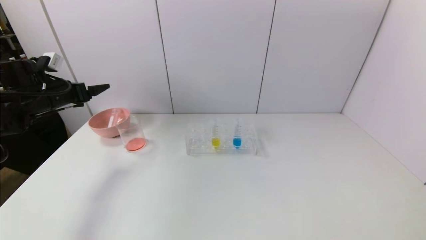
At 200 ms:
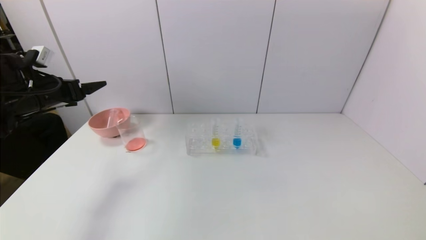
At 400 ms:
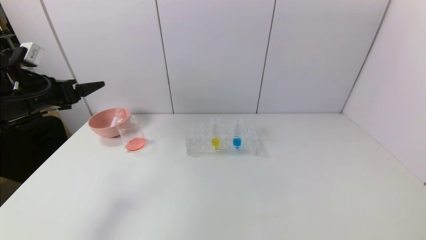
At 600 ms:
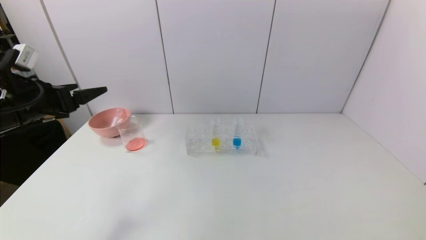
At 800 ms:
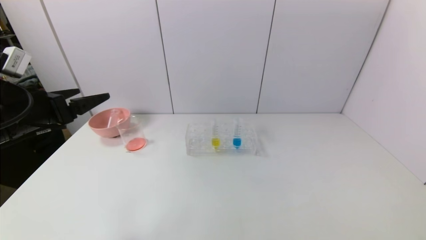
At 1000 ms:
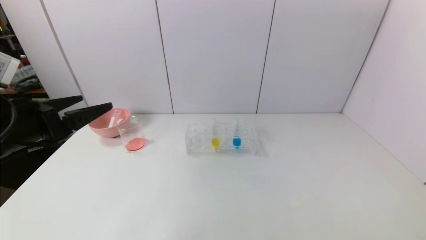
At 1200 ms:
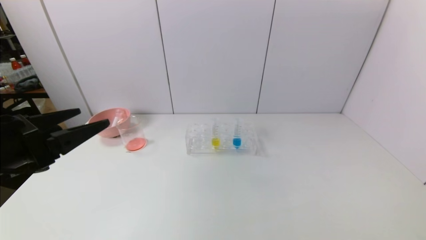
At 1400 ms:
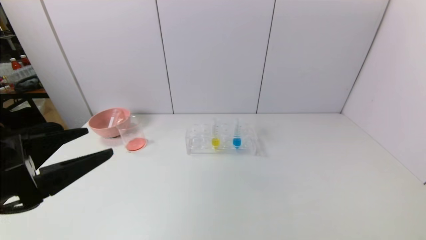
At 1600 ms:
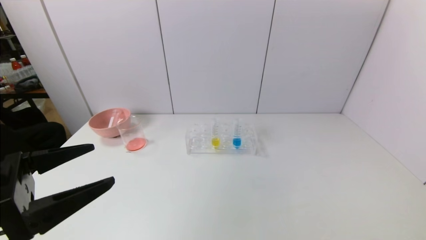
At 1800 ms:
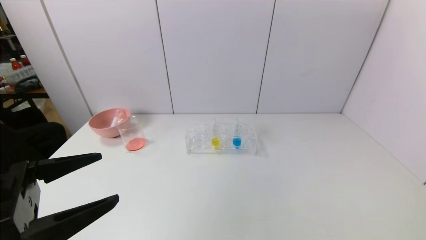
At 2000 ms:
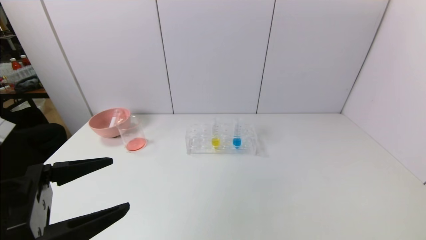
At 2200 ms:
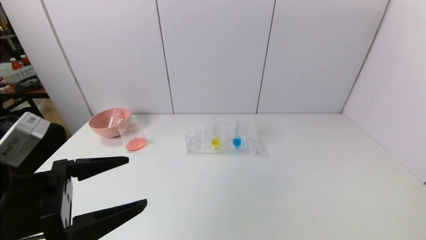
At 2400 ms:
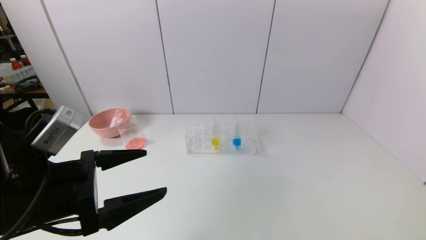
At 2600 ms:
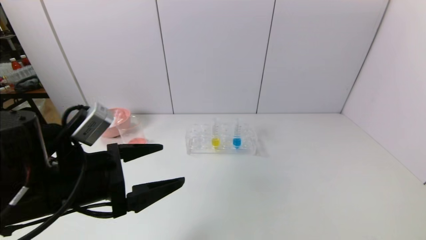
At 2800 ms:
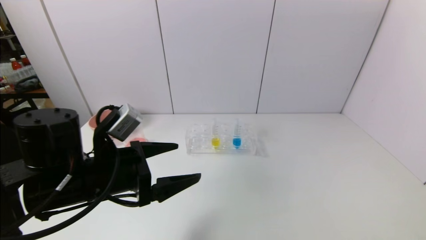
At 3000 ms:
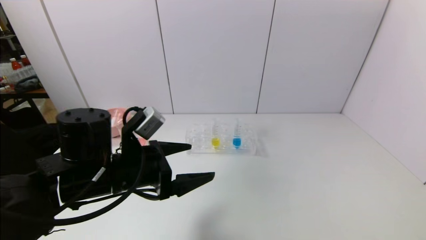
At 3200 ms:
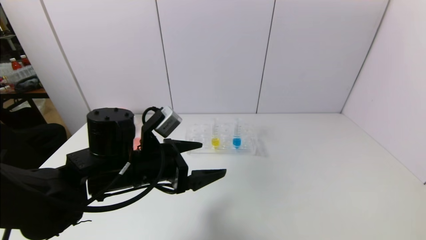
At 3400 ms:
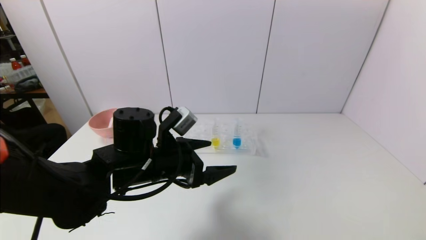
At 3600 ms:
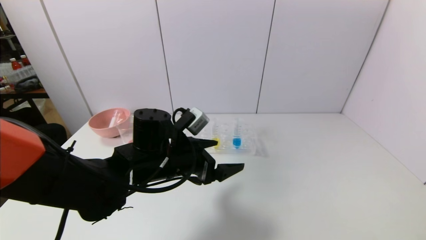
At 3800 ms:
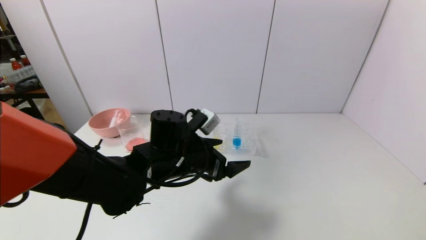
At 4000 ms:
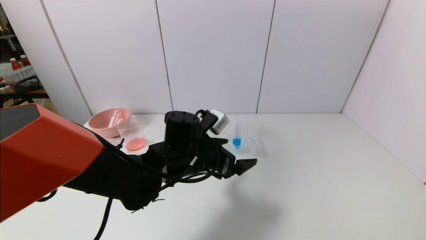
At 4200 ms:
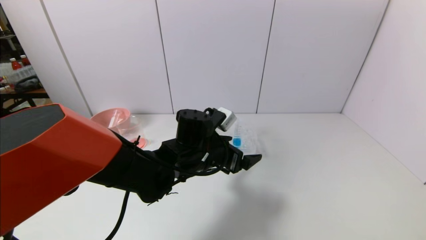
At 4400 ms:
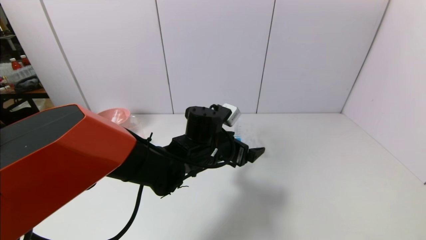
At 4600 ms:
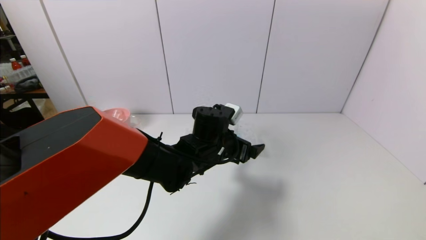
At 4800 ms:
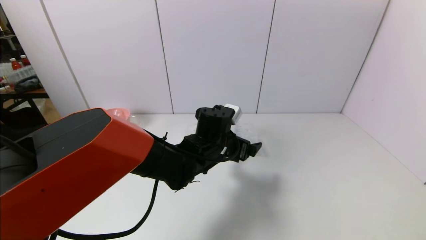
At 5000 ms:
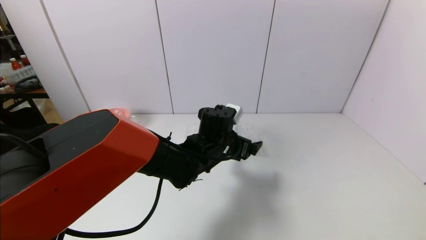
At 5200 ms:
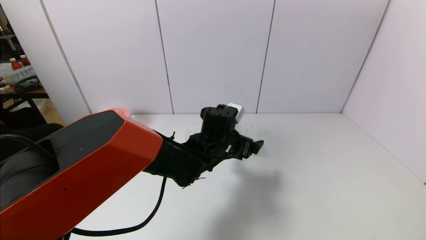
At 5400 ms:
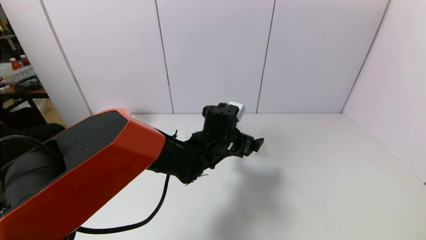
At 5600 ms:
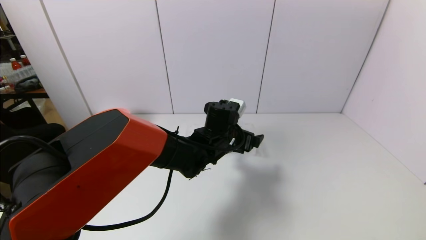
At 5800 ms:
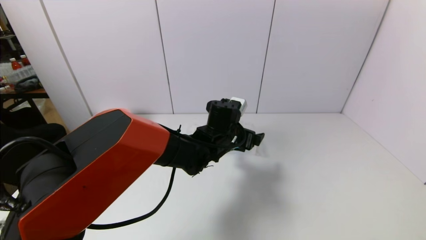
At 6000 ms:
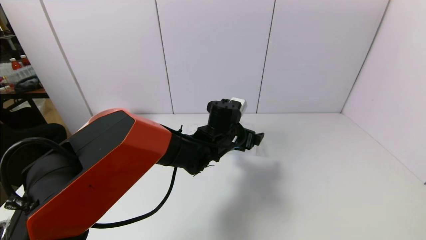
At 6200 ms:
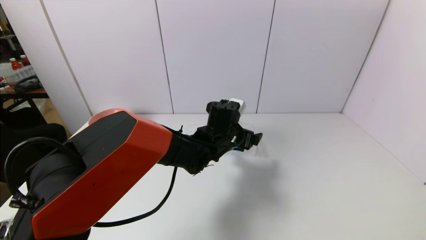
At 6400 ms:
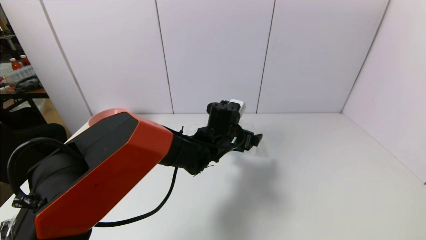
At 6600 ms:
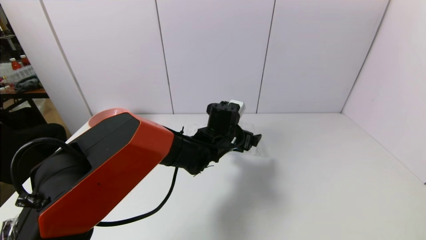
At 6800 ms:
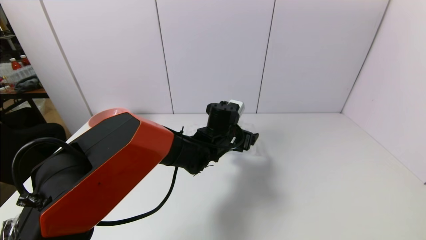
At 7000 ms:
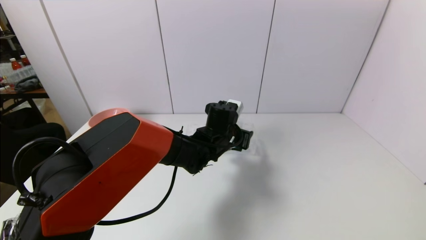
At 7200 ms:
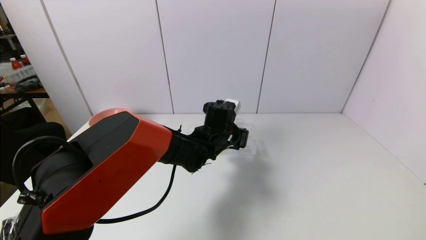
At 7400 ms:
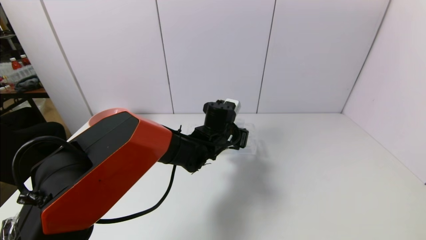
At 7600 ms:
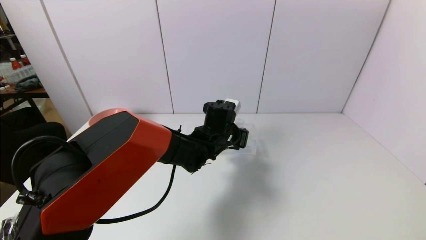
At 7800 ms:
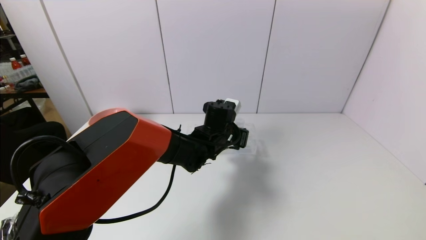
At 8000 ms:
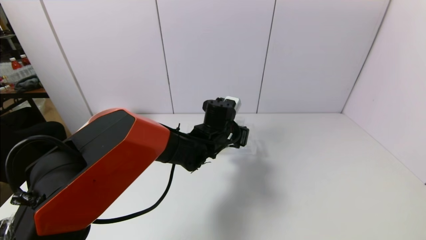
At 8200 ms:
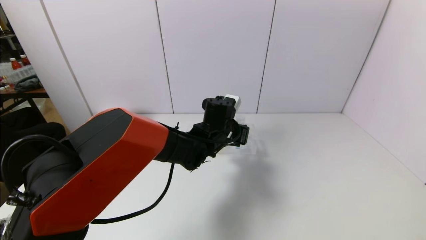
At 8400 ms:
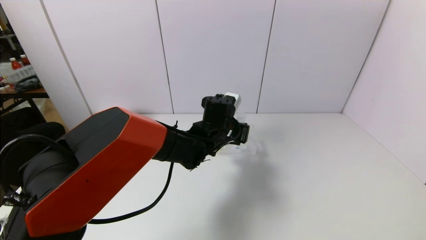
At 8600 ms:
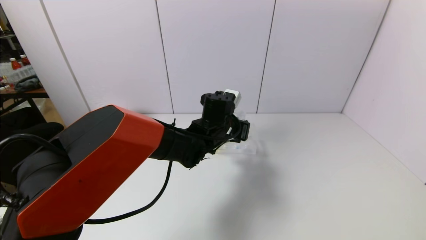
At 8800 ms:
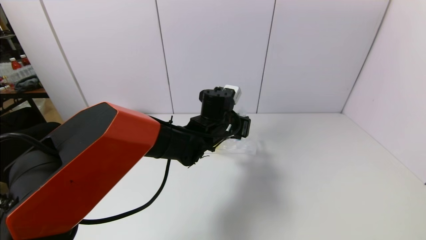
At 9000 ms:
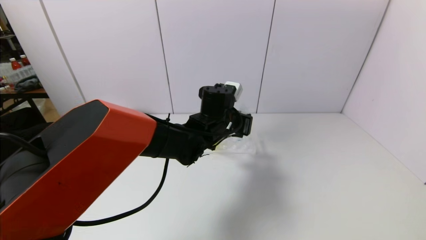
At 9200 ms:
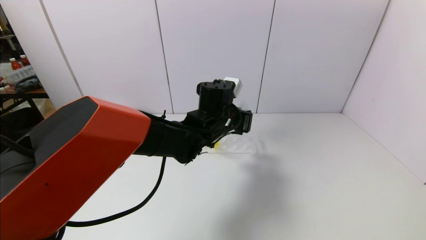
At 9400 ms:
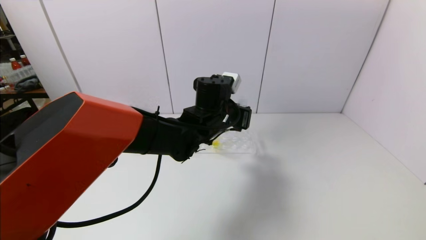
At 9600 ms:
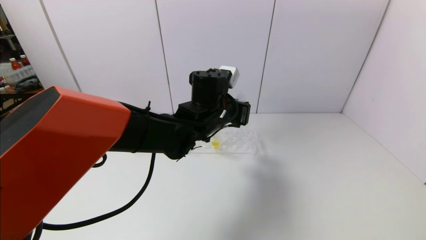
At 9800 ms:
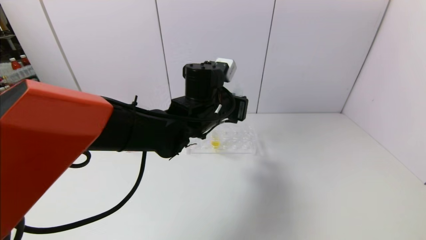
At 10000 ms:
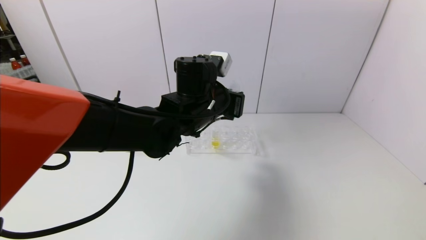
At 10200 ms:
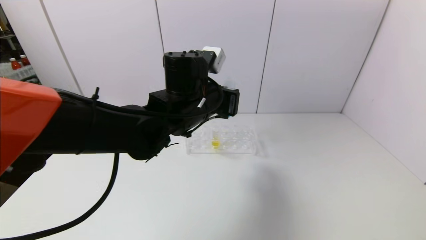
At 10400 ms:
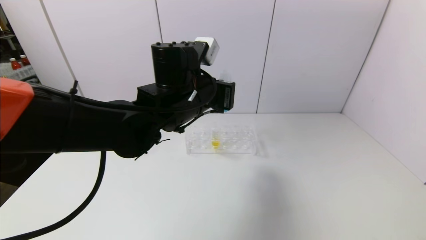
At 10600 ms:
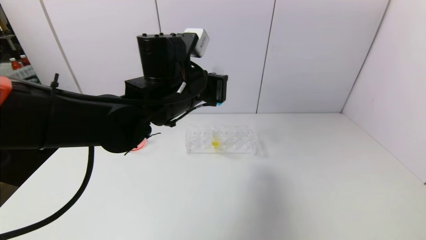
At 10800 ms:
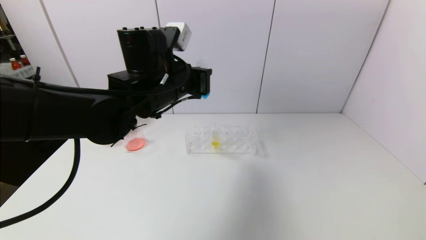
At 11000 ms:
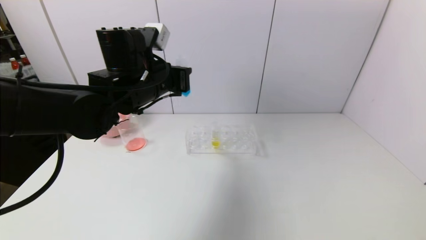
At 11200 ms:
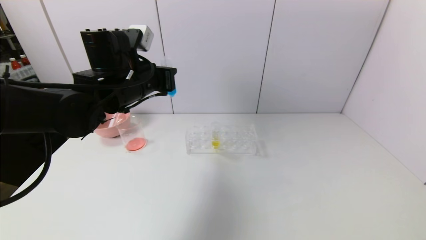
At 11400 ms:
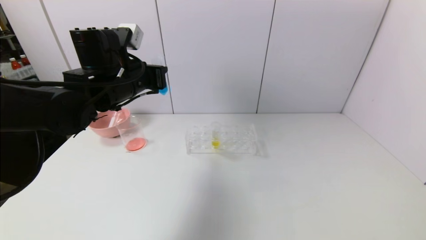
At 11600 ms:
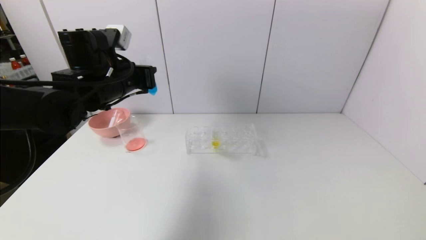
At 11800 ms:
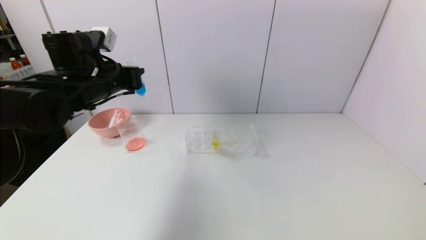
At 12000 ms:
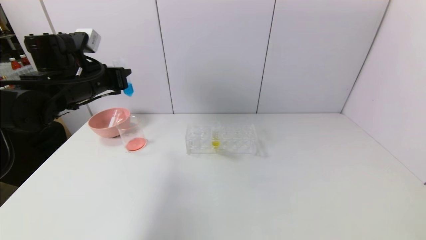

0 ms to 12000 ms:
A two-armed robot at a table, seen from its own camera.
Task of the whole recording: pick up the test tube with red pigment and the test tube with blue pigment by grippers and pour them into the container.
Step, 200 ms to 7400 ms: Grasp the blue reagent with the left gripper.
0 ms to 1600 ms: The left gripper heads backward and to the right, covering about 30 cm.
1600 ms to 3000 ms: The left gripper is displaced forward, to the right and downward by some 15 cm.
3000 ms to 4400 ms: The left gripper shifts approximately 15 cm to the right and forward.
4400 ms to 6000 ms: The left gripper goes about 5 cm forward.
6000 ms to 7600 ms: The left gripper closes up.
7600 ms to 9000 ms: The left gripper ends up about 5 cm from where it was.
9000 ms to 10400 ms: The left gripper heads upward, to the left and backward, covering about 10 cm.
10400 ms to 12000 ms: The left gripper goes approximately 20 cm to the left.

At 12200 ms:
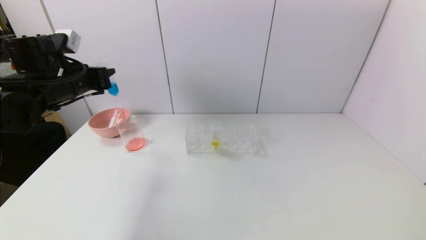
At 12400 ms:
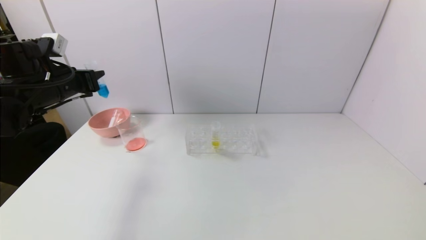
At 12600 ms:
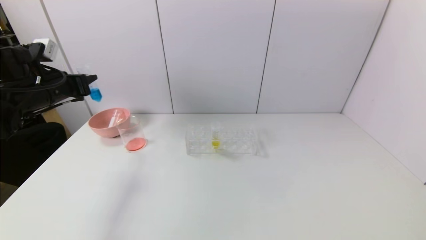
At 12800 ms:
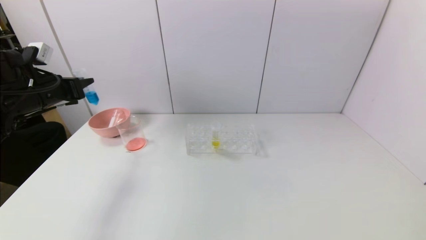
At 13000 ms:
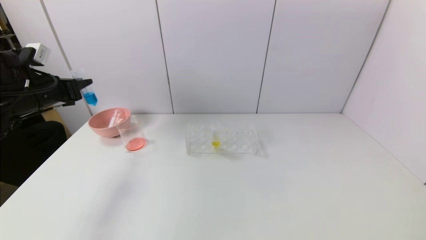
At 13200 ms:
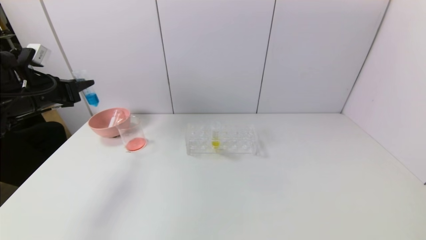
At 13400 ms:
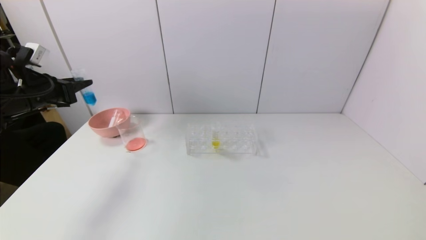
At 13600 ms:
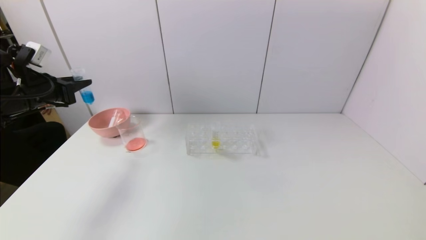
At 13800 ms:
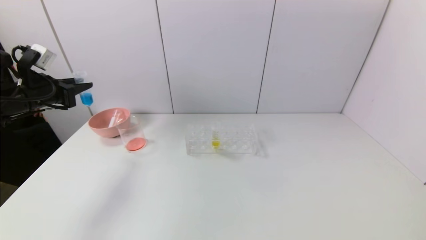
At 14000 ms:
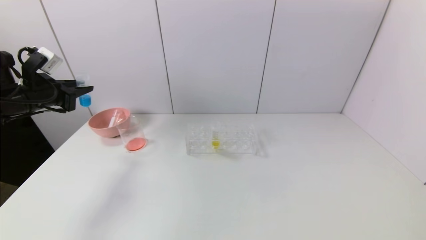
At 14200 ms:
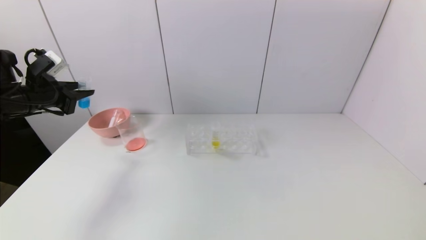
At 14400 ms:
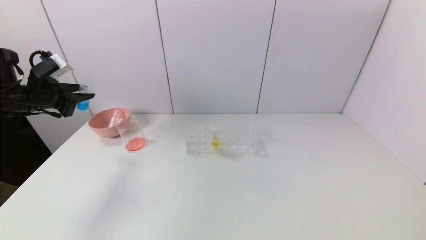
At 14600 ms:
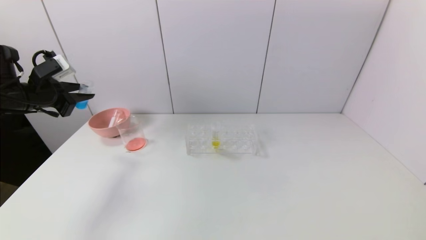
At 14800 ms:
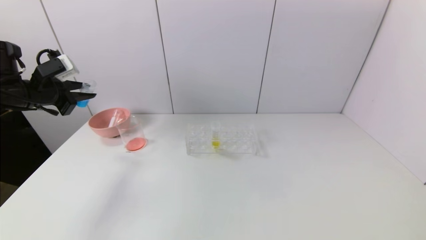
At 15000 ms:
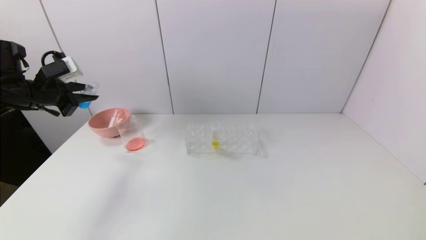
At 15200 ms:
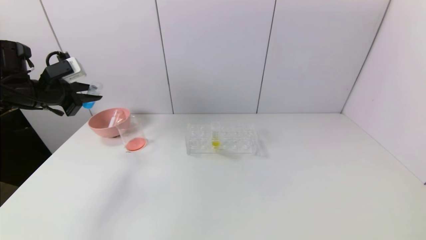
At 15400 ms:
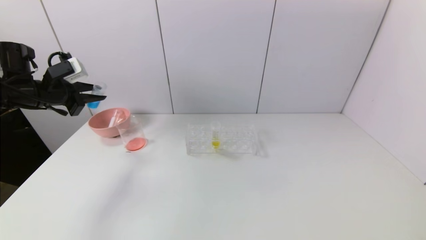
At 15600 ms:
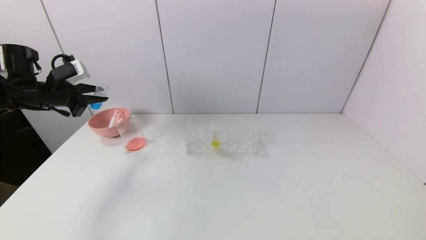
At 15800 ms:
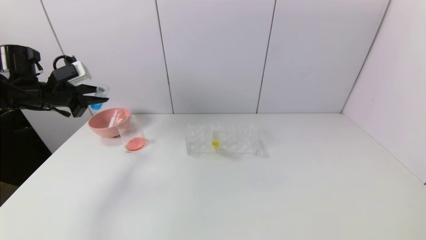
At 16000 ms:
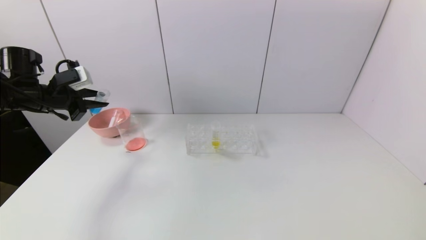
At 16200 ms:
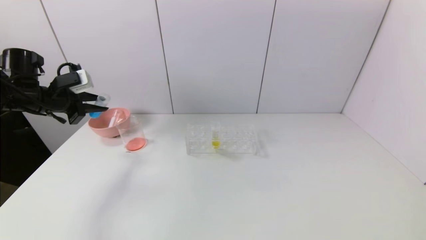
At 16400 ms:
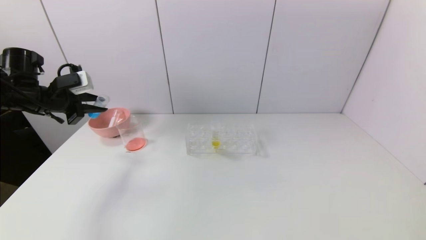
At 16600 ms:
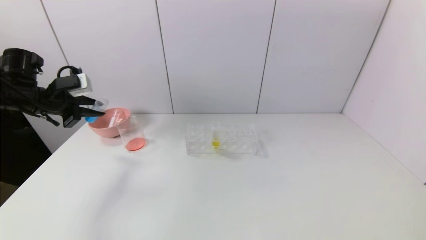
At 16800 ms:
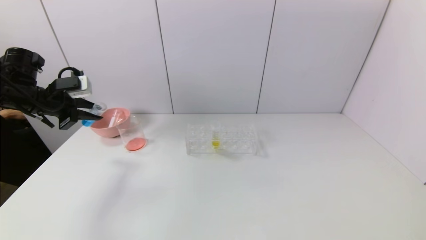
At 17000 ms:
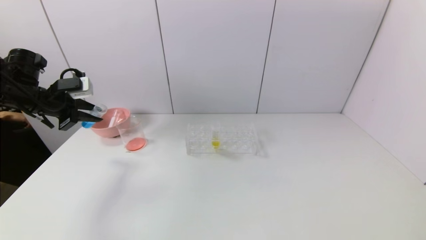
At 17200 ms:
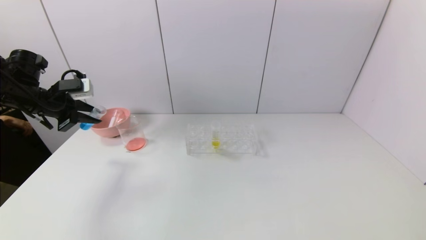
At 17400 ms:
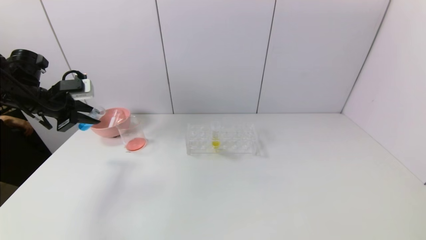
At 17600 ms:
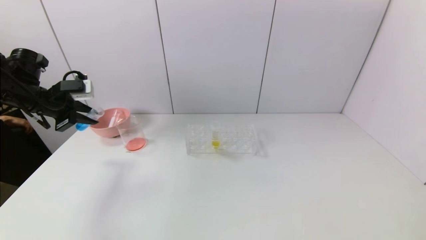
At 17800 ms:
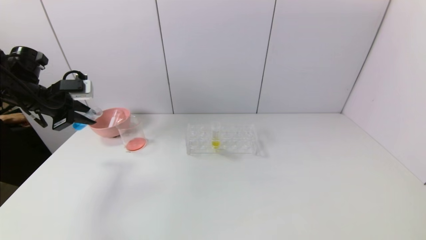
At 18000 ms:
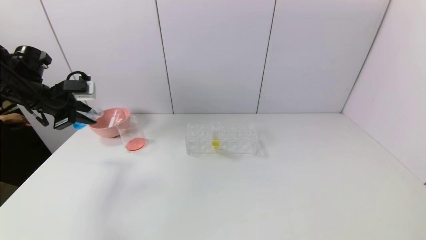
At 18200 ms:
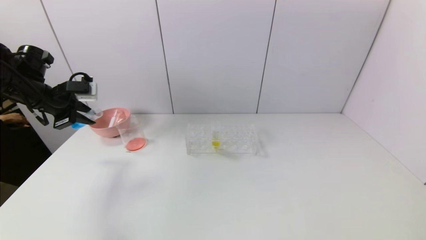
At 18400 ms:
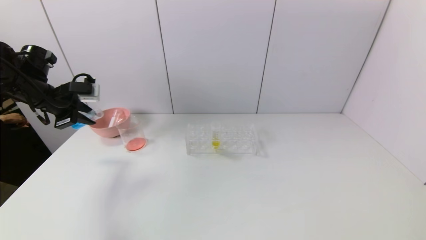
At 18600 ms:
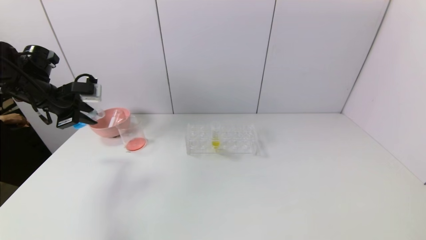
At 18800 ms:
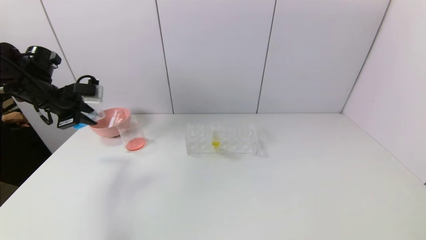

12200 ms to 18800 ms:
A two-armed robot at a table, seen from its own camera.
Task of the whole recording: pick up the test tube with red pigment and the test tube with blue pigment by grippers and pour them into the container.
12200 ms to 13800 ms: The left gripper heads to the left, covering approximately 10 cm.
17200 ms to 18800 ms: The grippers make only small movements.
